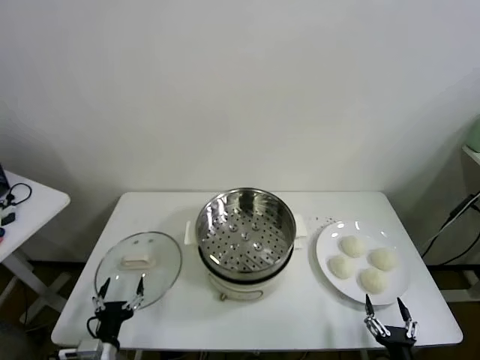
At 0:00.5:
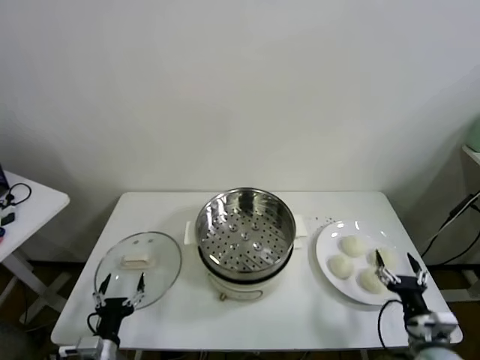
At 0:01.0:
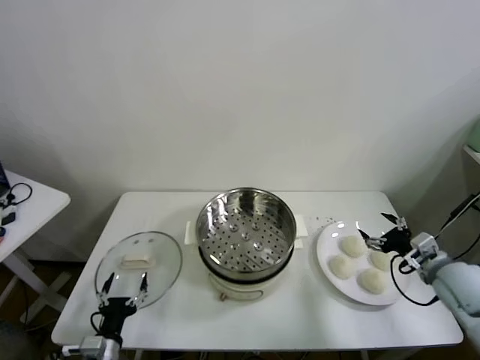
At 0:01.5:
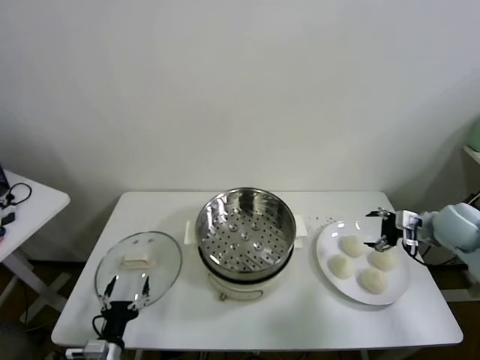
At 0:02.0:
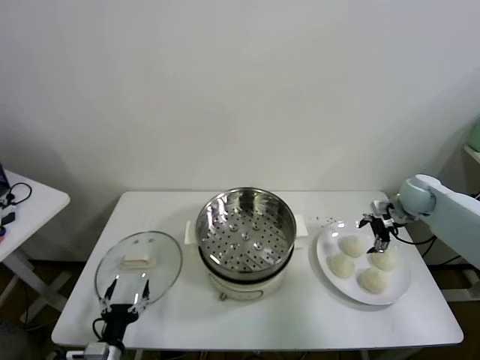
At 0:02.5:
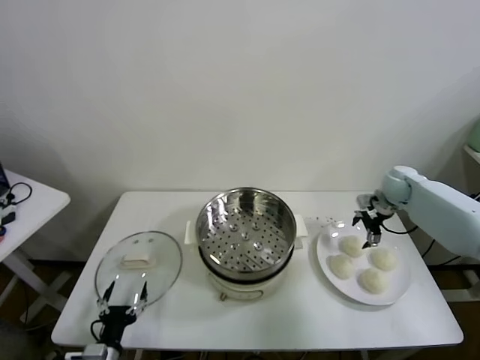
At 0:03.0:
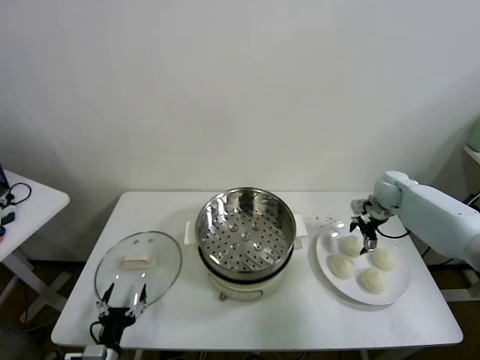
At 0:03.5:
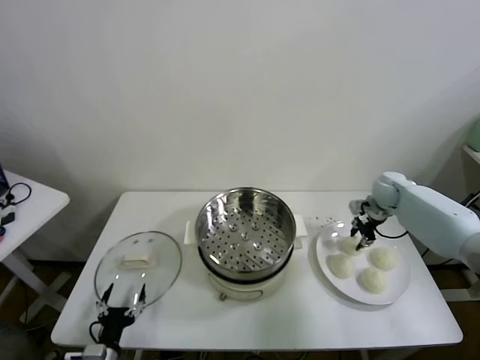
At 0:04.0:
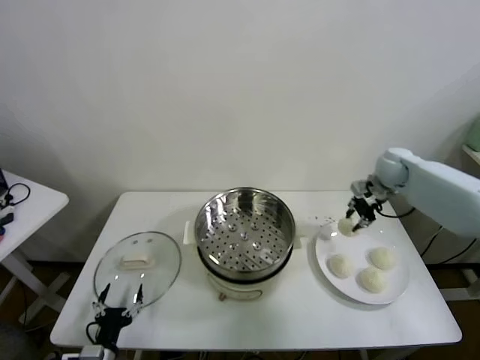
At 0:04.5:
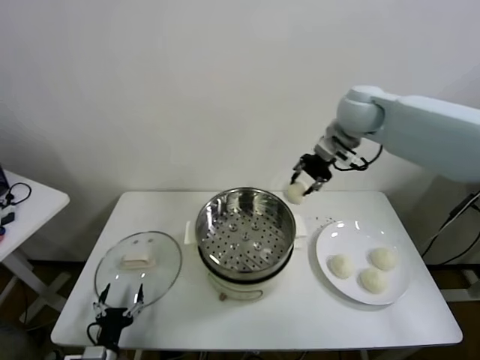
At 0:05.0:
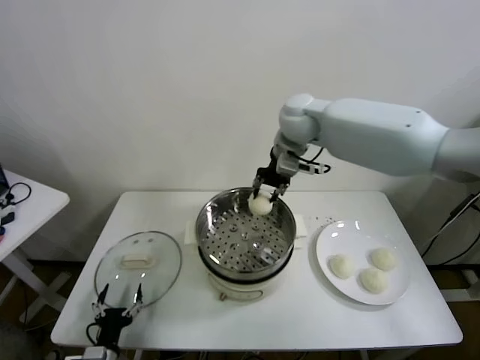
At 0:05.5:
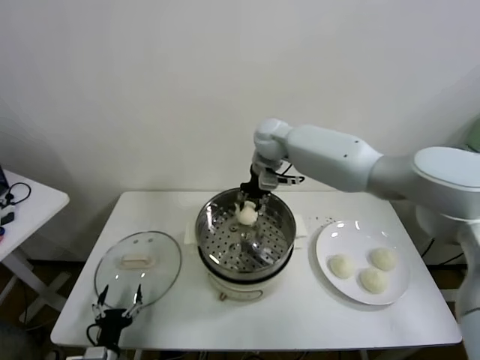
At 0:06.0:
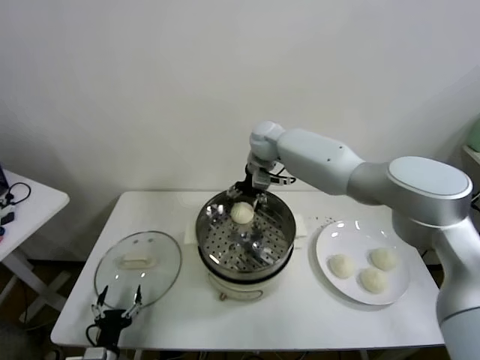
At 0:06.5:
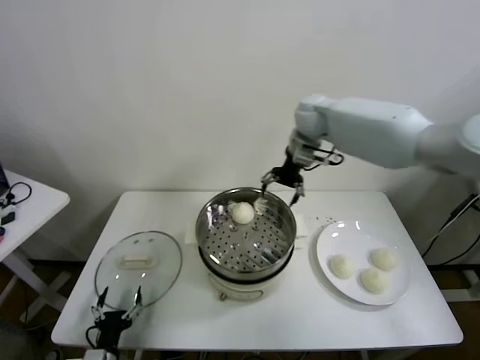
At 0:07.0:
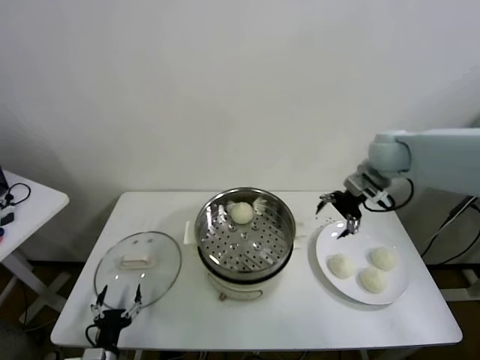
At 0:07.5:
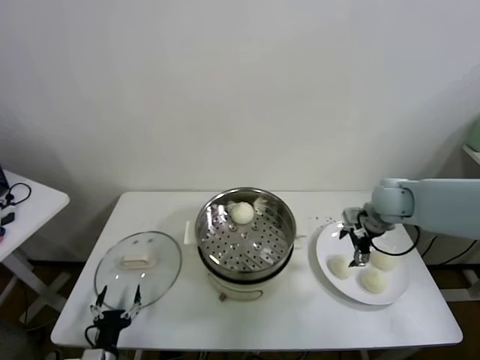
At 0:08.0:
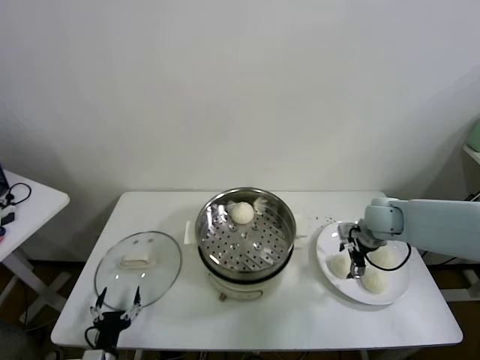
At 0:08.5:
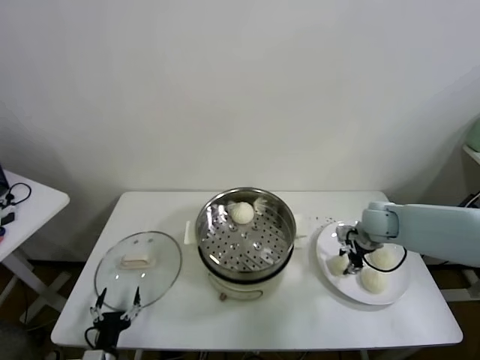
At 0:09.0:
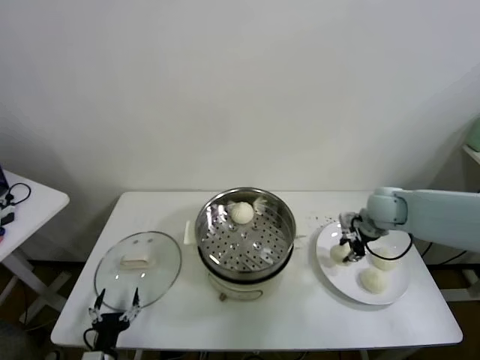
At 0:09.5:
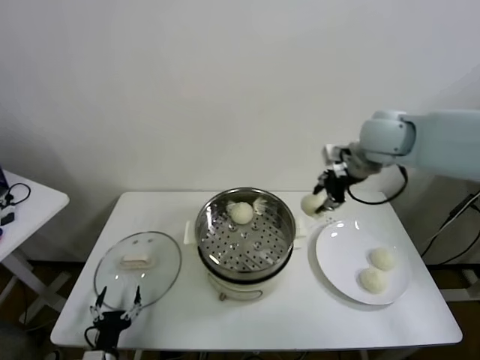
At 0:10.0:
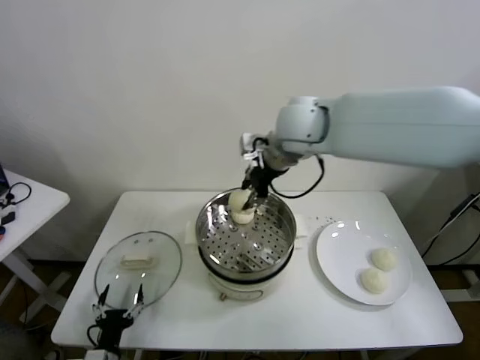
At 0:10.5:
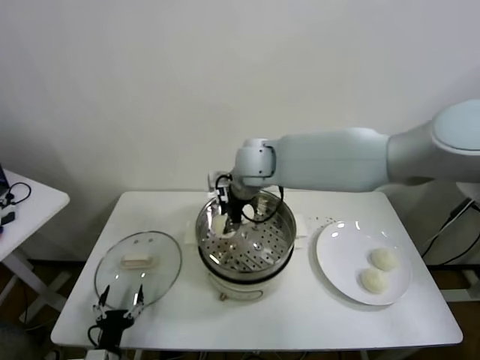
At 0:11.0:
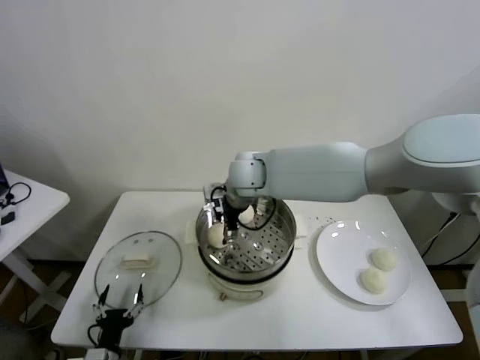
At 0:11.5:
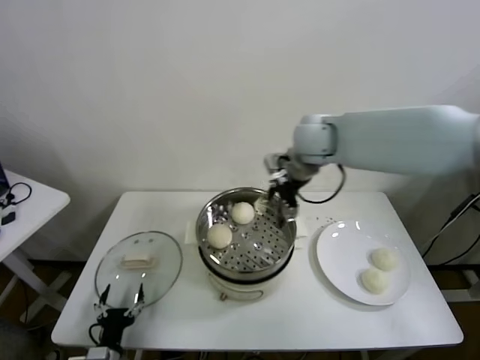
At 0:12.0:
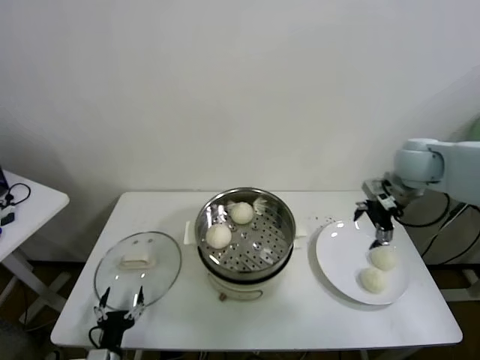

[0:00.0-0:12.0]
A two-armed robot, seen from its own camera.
Task of the whole recording: take steamed baozi put them in steamer.
Step, 0:00.0 to 0:03.0: Grasp the baozi in the plate with right gripper.
Step, 0:03.5 to 0:05.5: Place the baozi on the steamer with right gripper.
Step, 0:06.5 to 0:08.0: Grasp the baozi in the plate with right gripper.
Step, 0:08.5 to 0:10.5: Place the baozi on the steamer with right gripper.
0:02.0 to 0:04.0: The right gripper moves upward and to the left, roughly 10 cm, and closes its fingers.
0:04.0 to 0:06.0: The right gripper is displaced to the left by some 30 cm, and opens its fingers.
0:06.0 to 0:08.0: The right gripper goes some 35 cm to the right, backward and downward.
0:08.0 to 0:10.0: The right gripper goes some 35 cm to the left and upward, and closes its fingers.
0:10.0 to 0:12.0: The right gripper heads to the right, covering roughly 25 cm, and opens up.

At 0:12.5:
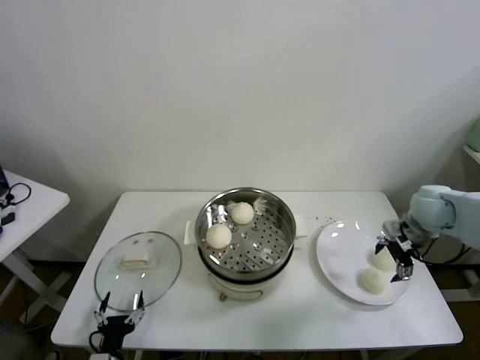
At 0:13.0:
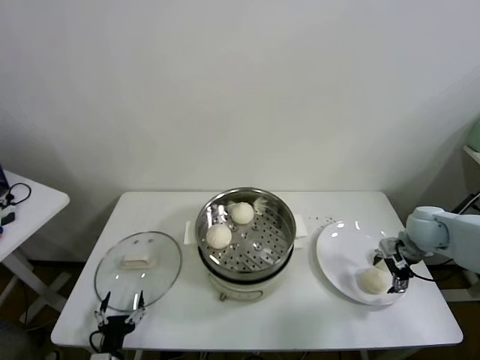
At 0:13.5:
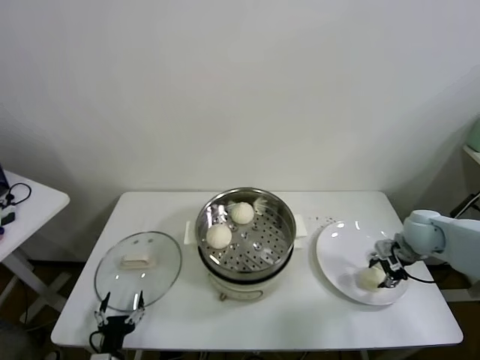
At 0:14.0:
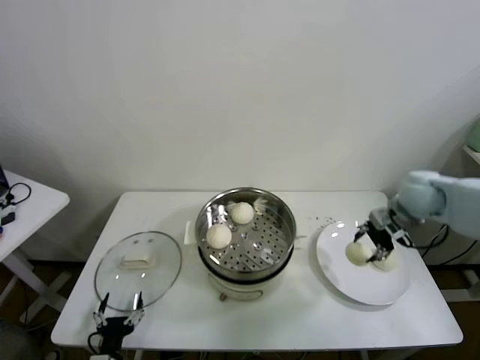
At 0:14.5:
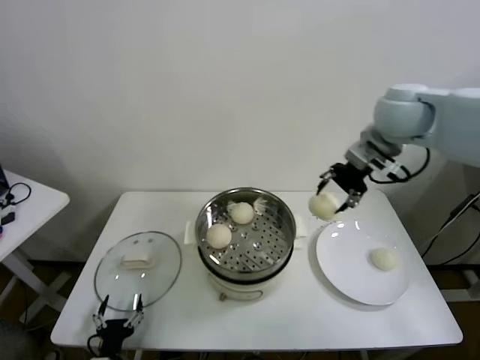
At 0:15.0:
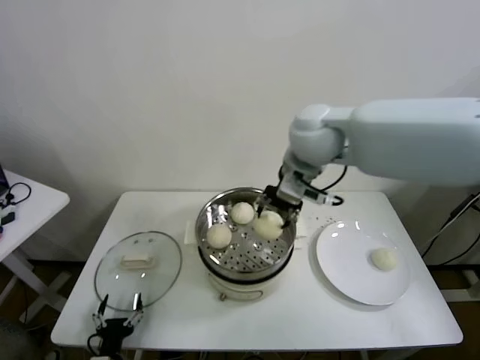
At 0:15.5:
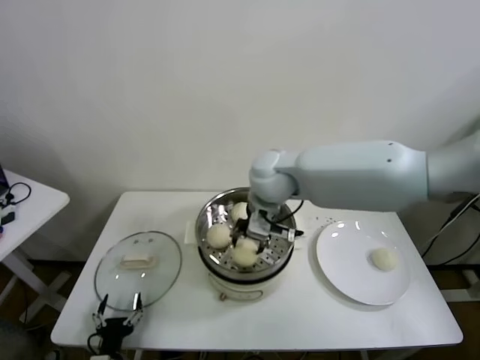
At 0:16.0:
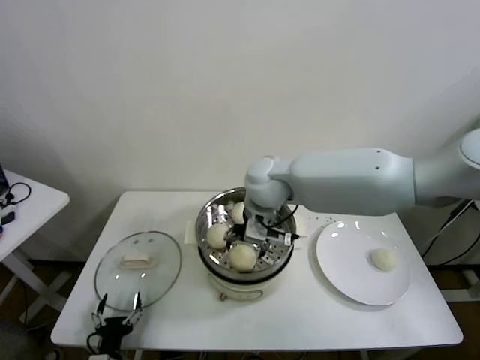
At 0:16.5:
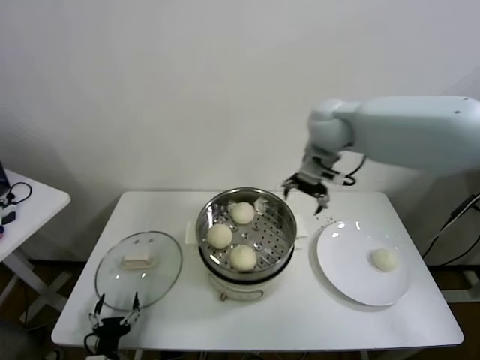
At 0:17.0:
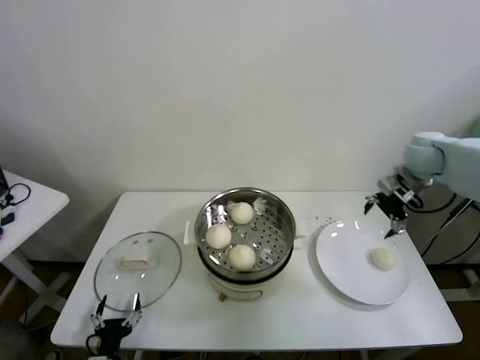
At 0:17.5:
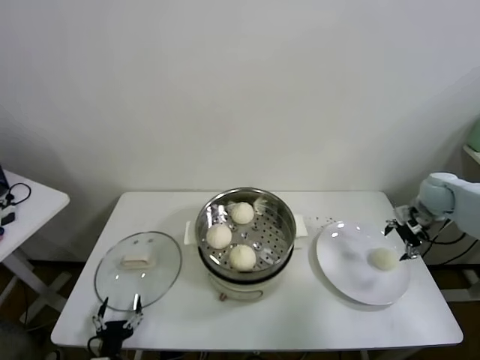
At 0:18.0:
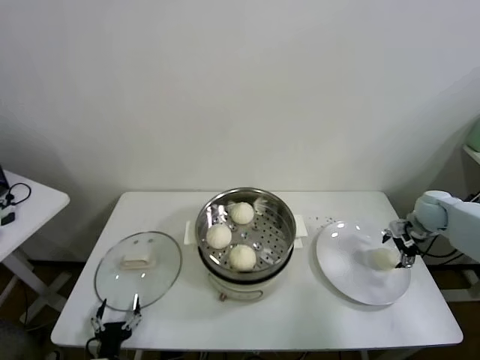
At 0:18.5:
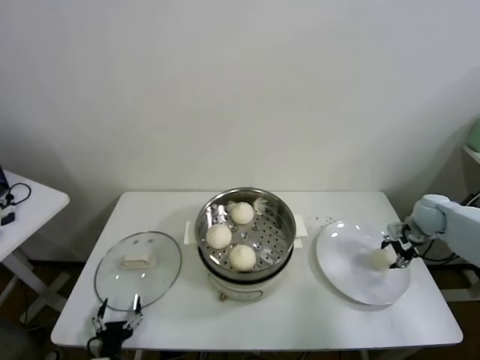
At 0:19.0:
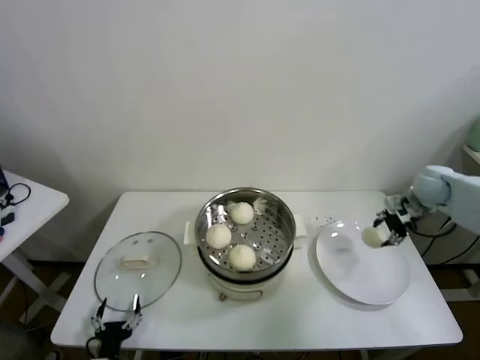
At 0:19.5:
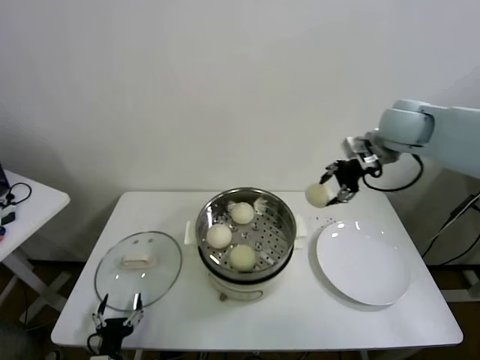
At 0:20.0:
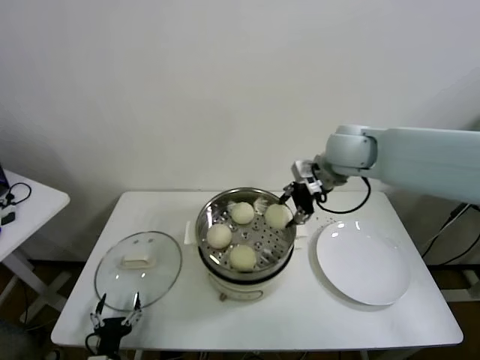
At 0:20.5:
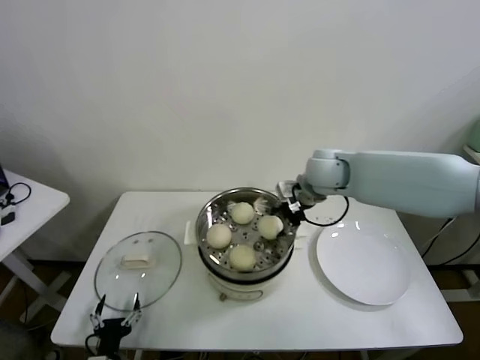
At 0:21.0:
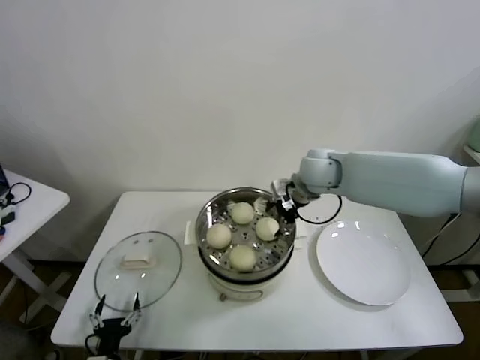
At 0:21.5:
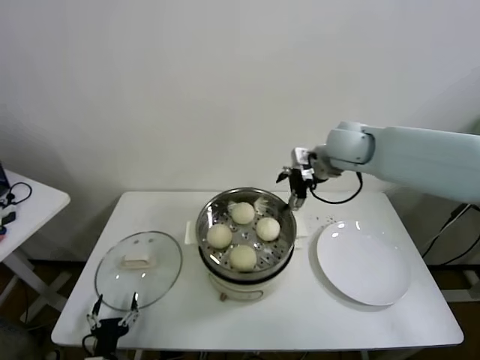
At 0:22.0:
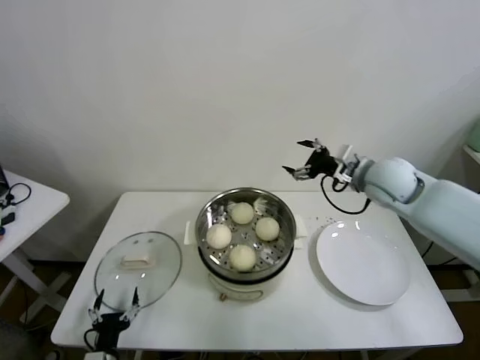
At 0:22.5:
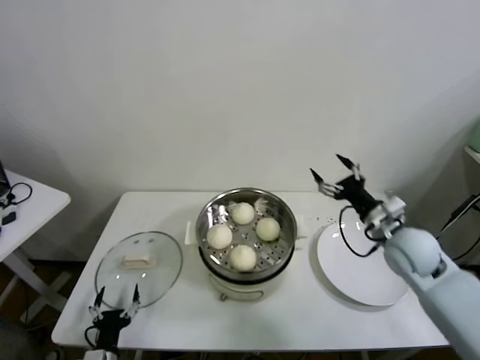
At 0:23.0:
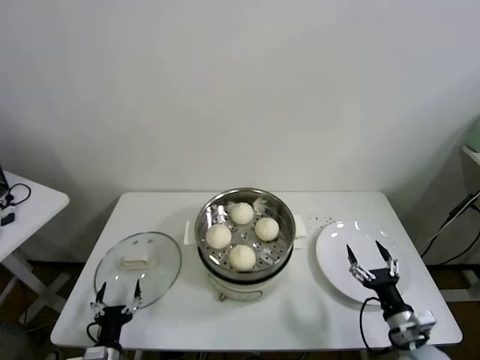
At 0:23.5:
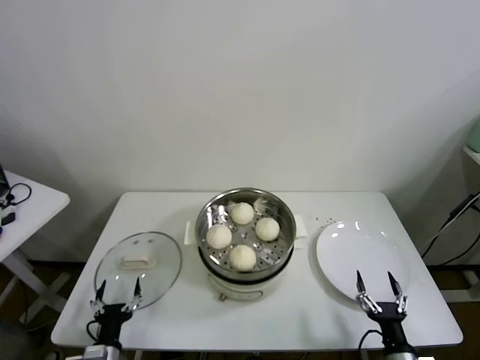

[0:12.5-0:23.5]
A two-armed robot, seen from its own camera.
Task of the whole recording: take steamed baozi put them in steamer.
Step, 0:13.5 to 0:15.5: Place the baozi on the steamer with right gripper.
Step, 0:16.5 to 0:18.0: Grasp the baozi in the plate with right gripper.
Step, 0:18.5 to 0:21.0: Place the baozi on the steamer with right gripper.
0:12.5 to 0:14.5: The right gripper heads upward and to the left, covering some 25 cm, and closes.
0:14.5 to 0:16.0: The right gripper travels to the left and downward by about 25 cm, and opens.
0:16.0 to 0:18.0: The right gripper heads to the right, covering roughly 40 cm.
0:18.0 to 0:20.0: The right gripper travels to the left and upward by roughly 35 cm, and closes.
0:20.0 to 0:21.5: The right gripper reaches approximately 10 cm downward, then returns, and opens its fingers.
0:21.5 to 0:23.5: The right gripper goes about 50 cm downward and backward.

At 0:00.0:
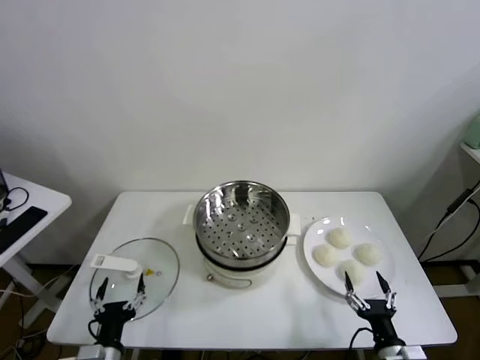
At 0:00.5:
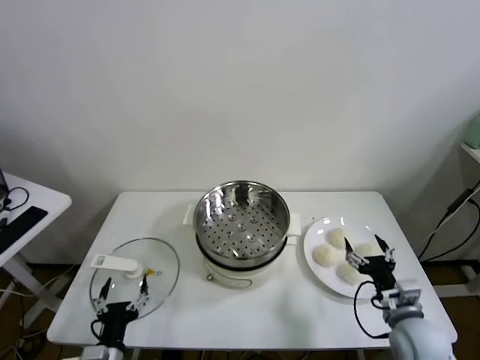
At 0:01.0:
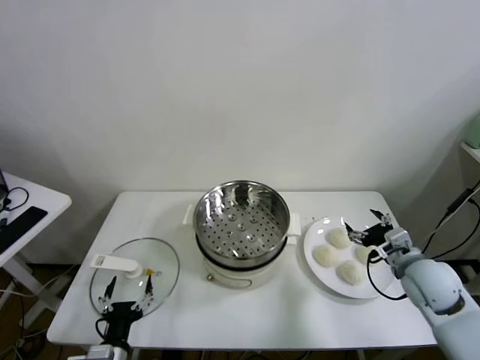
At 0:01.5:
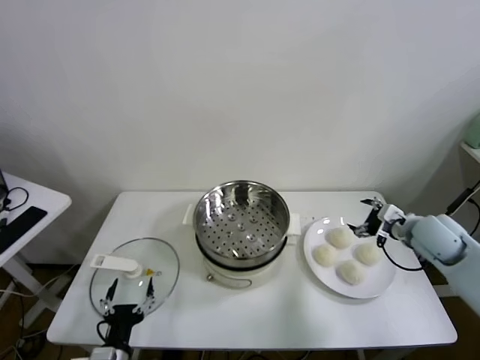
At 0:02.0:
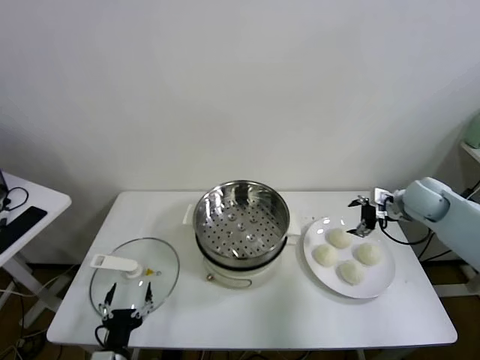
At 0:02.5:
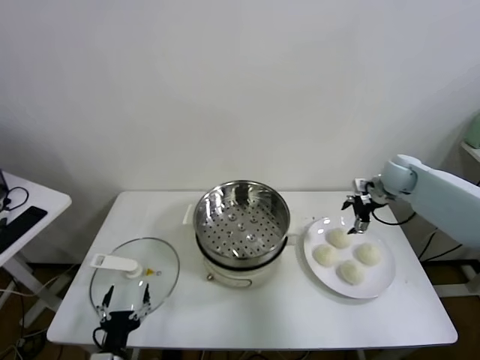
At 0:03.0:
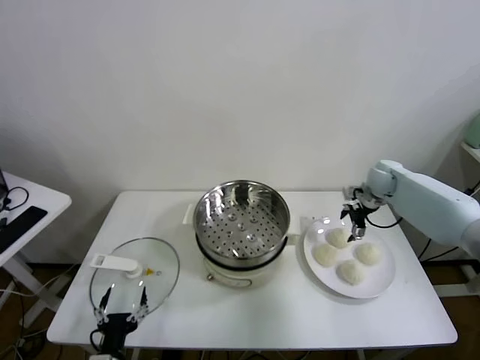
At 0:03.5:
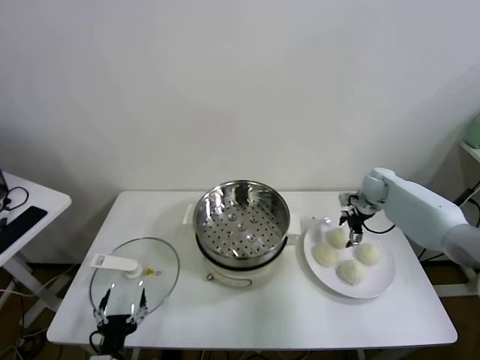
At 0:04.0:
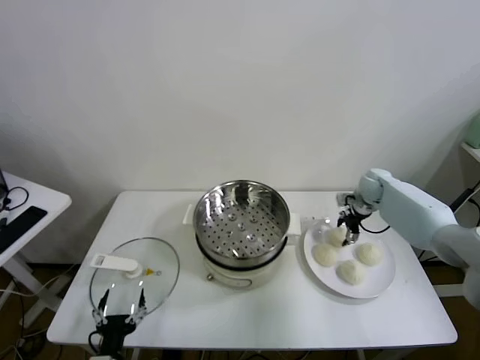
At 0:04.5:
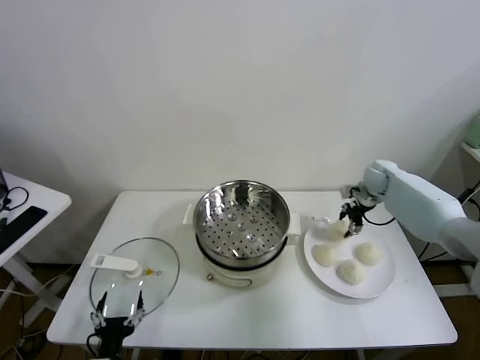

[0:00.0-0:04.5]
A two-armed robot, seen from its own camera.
Task of the whole recording: take steamed baozi put them in steamer.
Step, 0:00.0 to 0:04.0: Grasp the baozi in the plate with right gripper.
0:02.0 to 0:04.5: The right gripper moves forward, some 10 cm, and closes its fingers.
